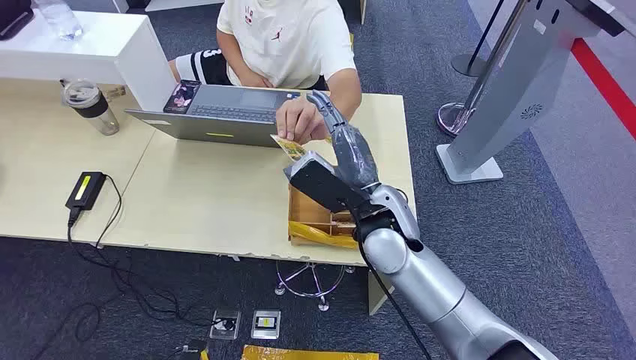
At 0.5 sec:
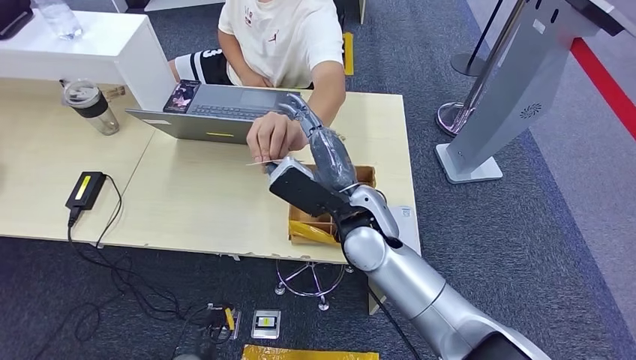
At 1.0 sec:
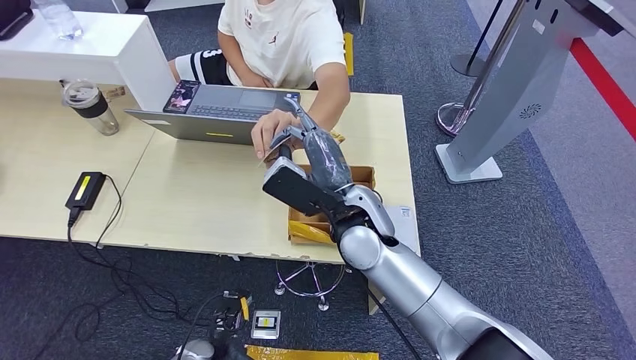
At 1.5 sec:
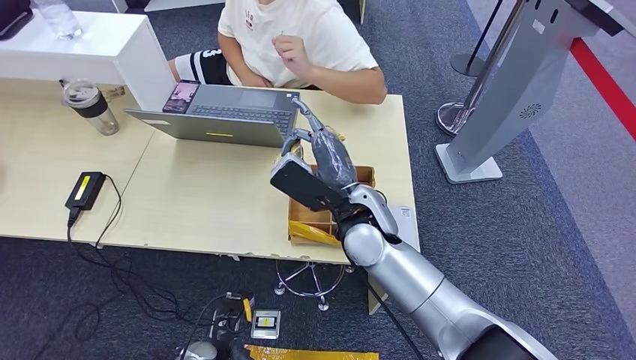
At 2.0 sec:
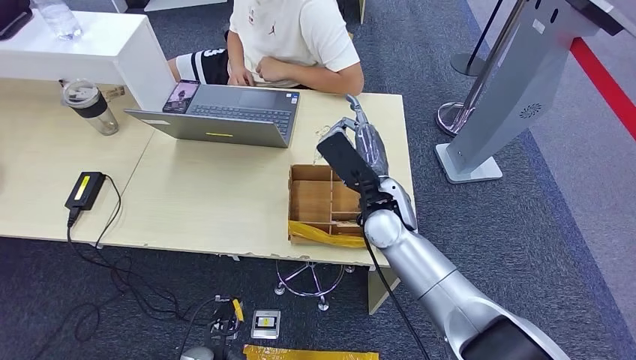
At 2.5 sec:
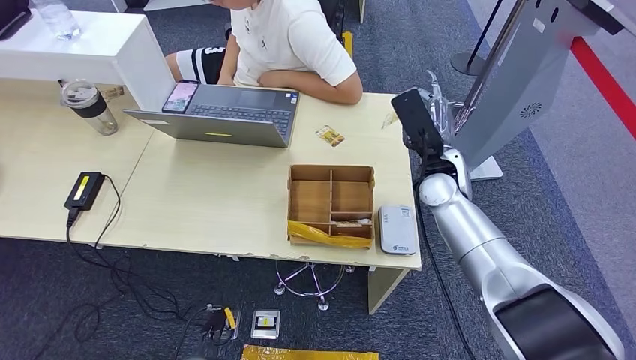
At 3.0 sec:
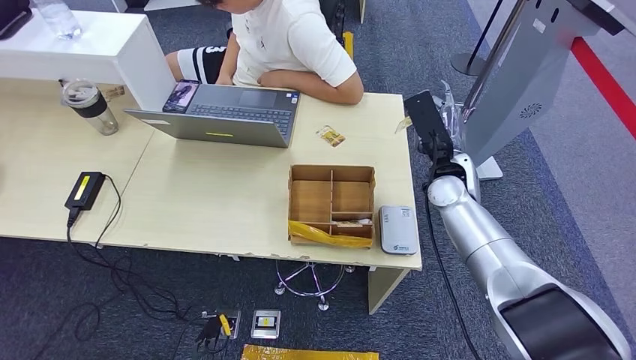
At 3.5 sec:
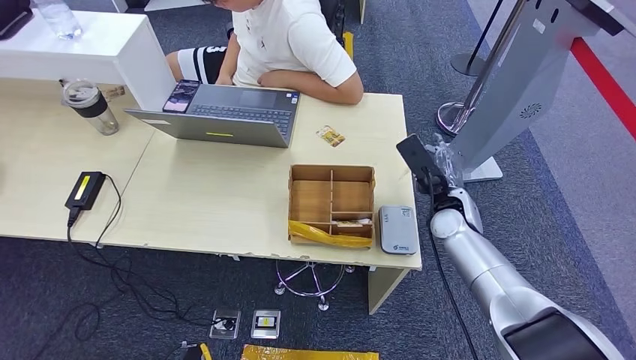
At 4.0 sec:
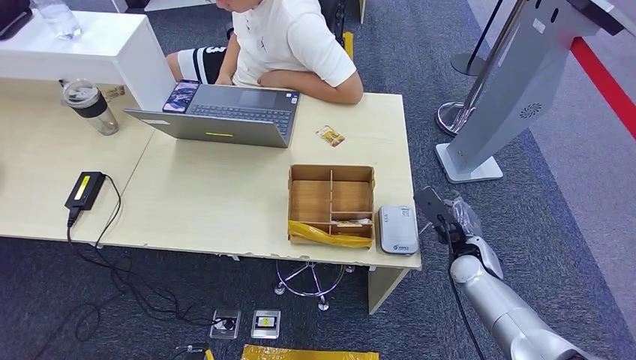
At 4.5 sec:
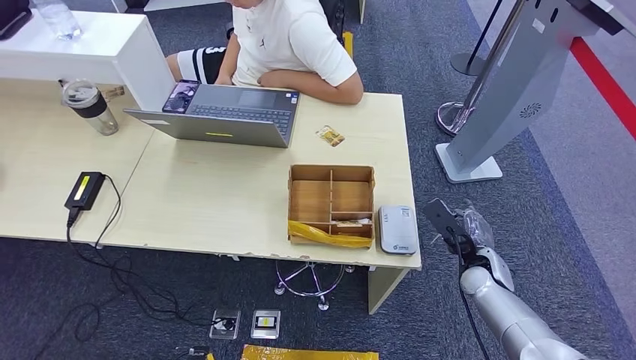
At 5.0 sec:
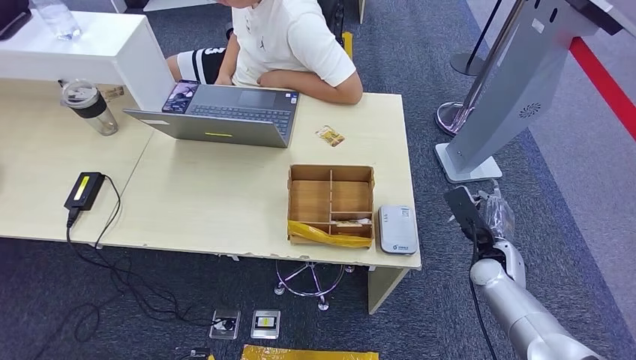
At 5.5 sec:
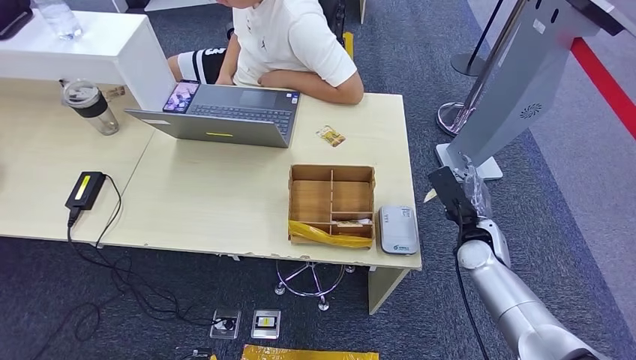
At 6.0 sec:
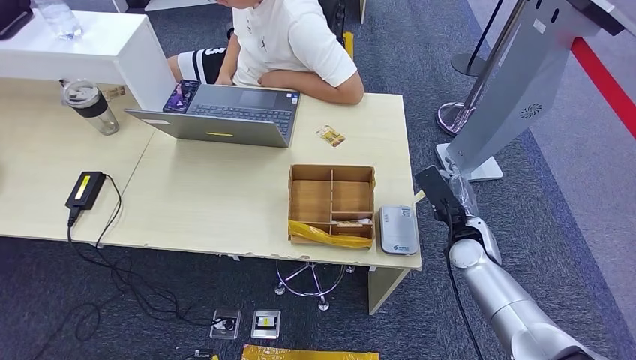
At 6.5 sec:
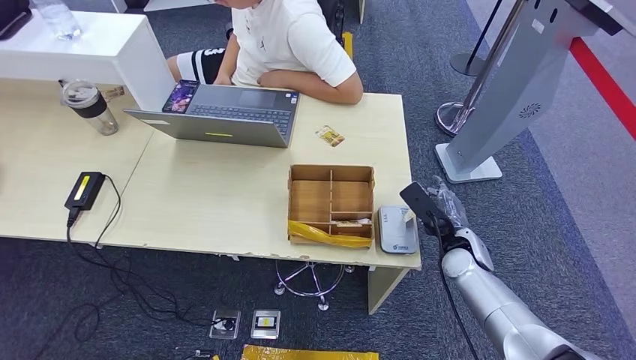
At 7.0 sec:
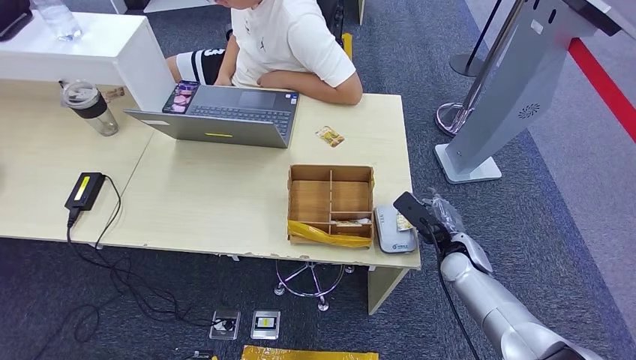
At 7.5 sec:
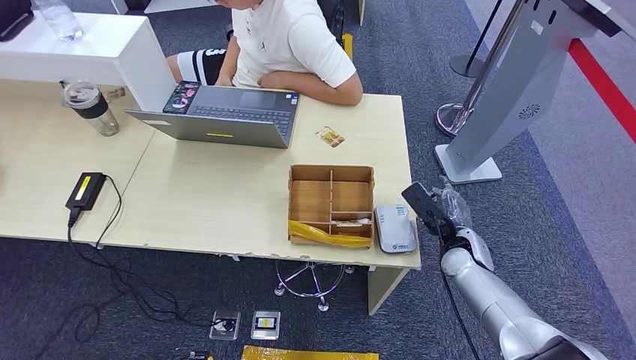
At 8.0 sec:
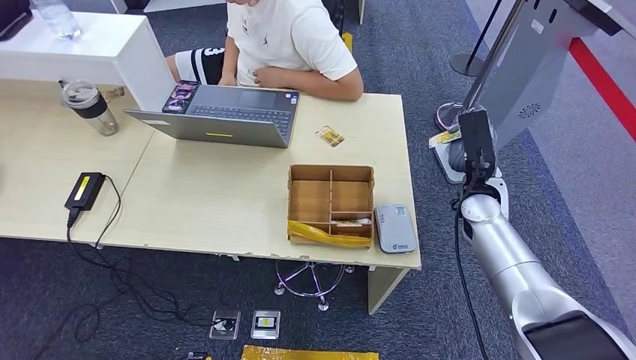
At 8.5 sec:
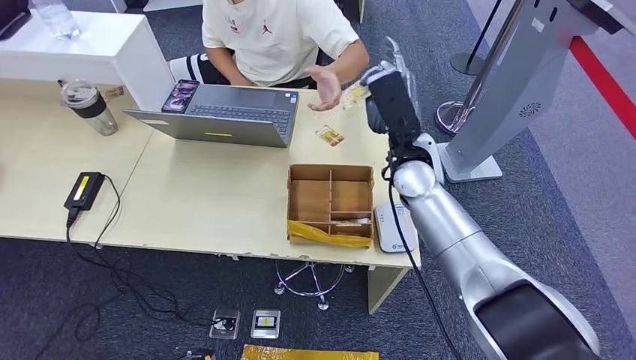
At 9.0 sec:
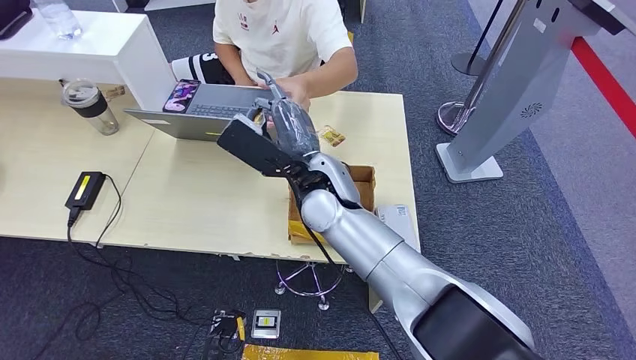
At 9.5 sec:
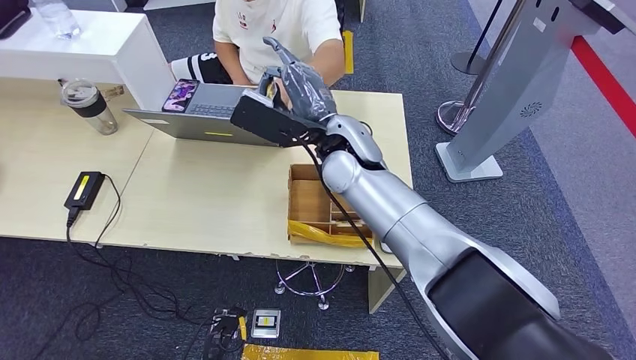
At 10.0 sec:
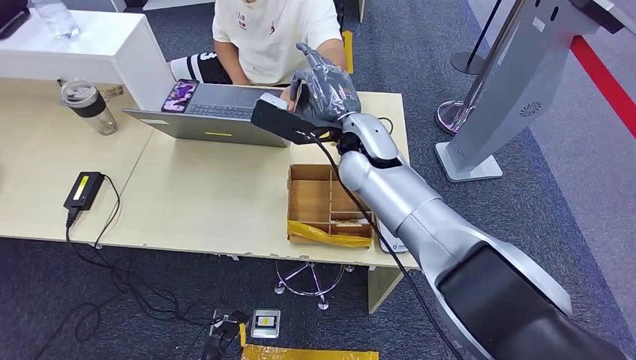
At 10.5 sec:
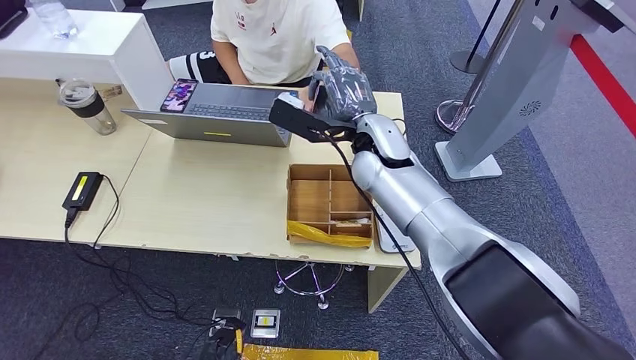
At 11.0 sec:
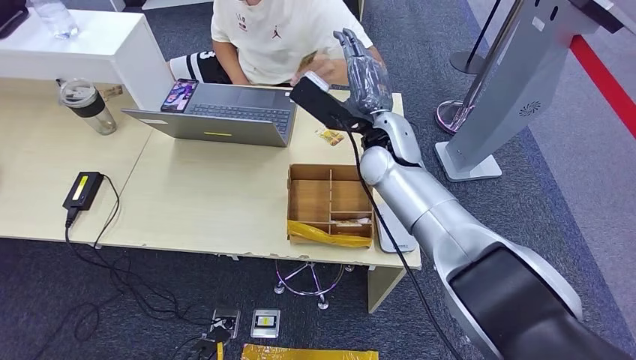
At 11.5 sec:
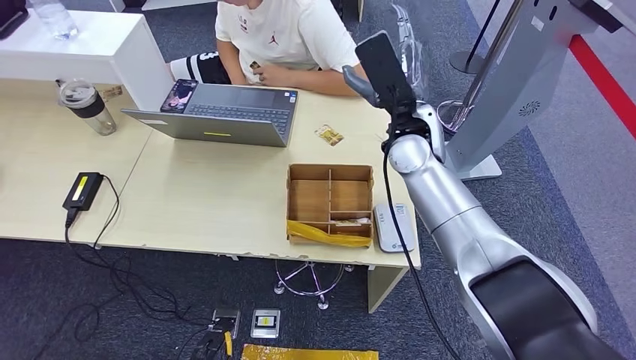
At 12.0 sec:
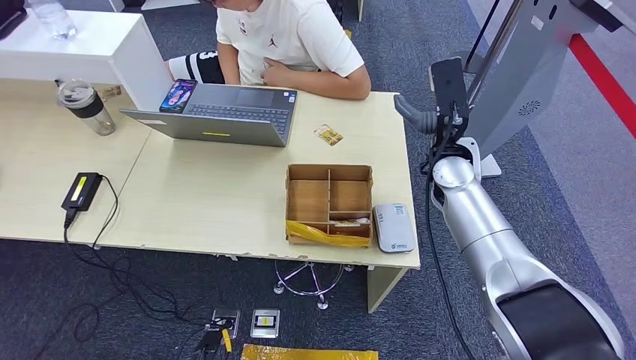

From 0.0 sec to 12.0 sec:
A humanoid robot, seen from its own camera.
Step, from 0.0 sec to 2.0 sec: Take the ID card from the person's hand.
Step, from 2.5 sec to 8.0 sec: Place the ID card on the card reader.
From 2.0 sec to 4.0 sec: The right hand moves to the right and downward, some 25 cm, while the left hand heads backward and to the left, covering approximately 10 cm.
From 4.0 sec to 6.0 sec: The hands stay close to where they were, moving slightly.
From 6.0 sec to 8.0 sec: The right hand heads upward, covering some 5 cm.
From 8.0 sec to 10.0 sec: The right hand heads to the left and upward, covering roughly 25 cm. The left hand shifts roughly 10 cm forward.

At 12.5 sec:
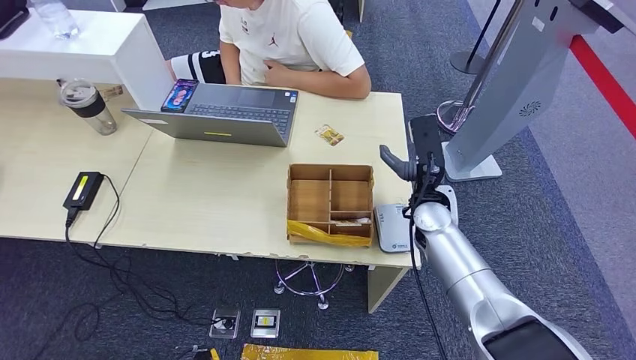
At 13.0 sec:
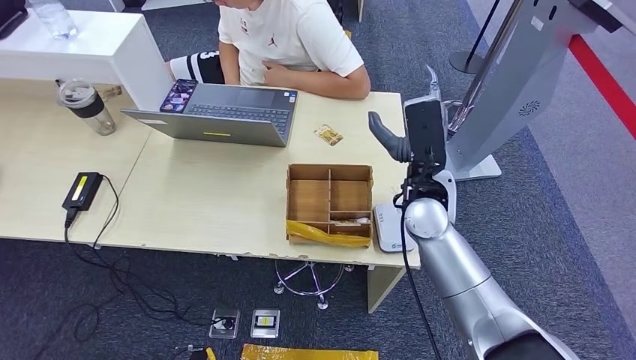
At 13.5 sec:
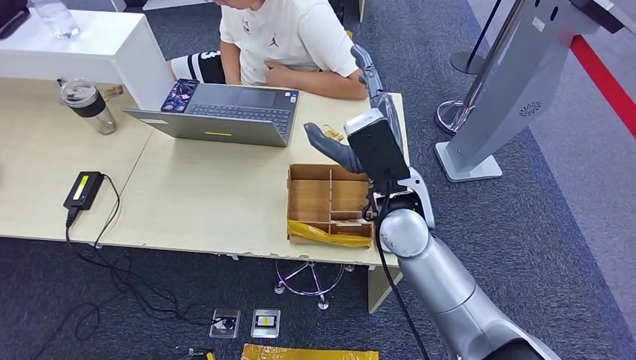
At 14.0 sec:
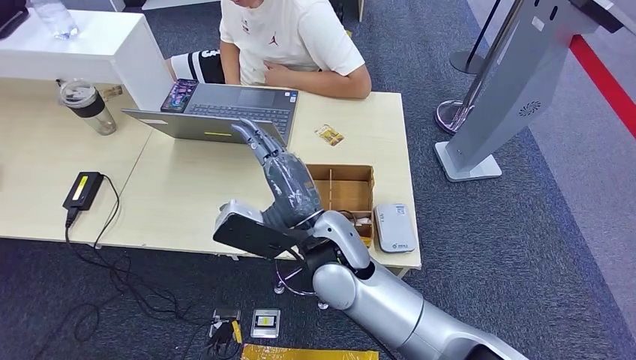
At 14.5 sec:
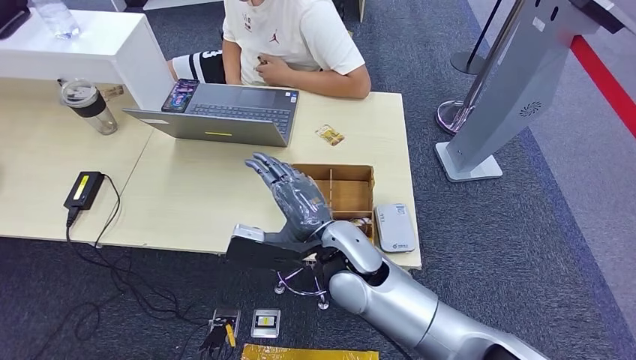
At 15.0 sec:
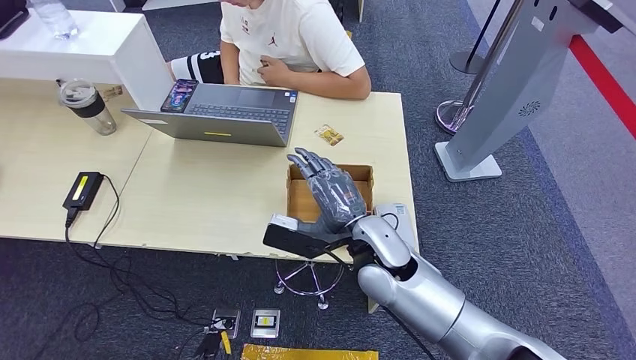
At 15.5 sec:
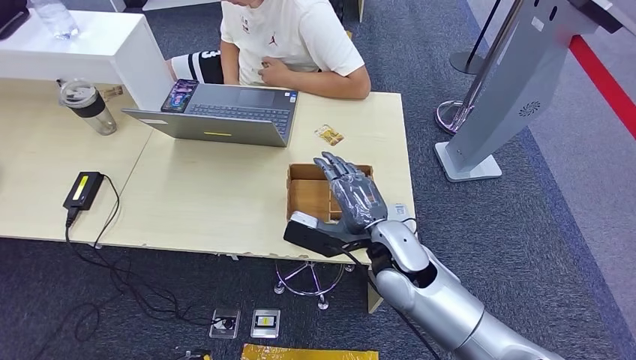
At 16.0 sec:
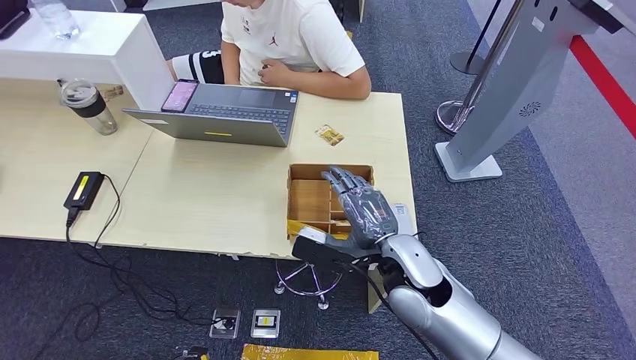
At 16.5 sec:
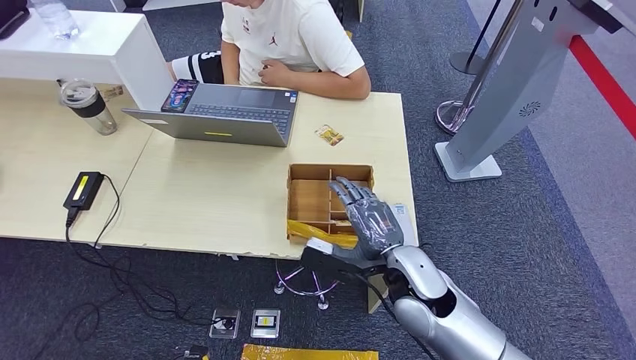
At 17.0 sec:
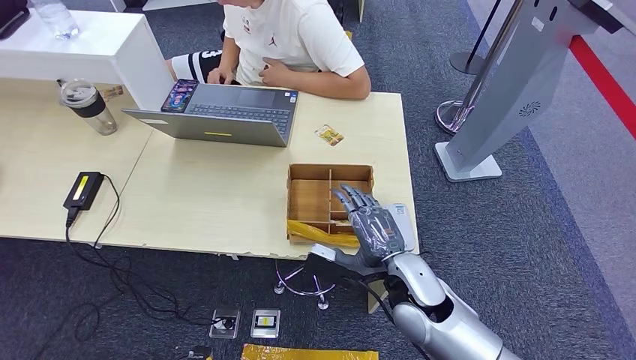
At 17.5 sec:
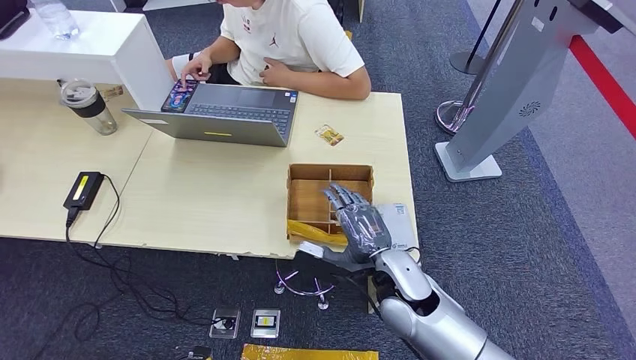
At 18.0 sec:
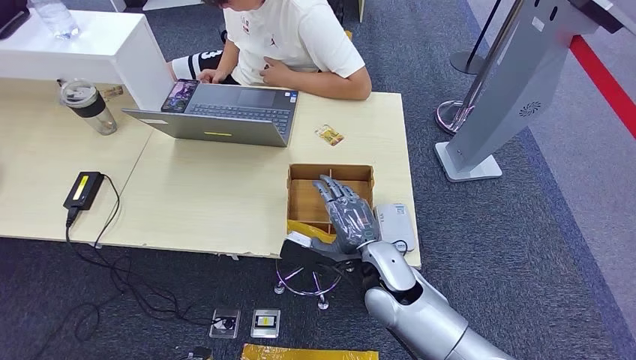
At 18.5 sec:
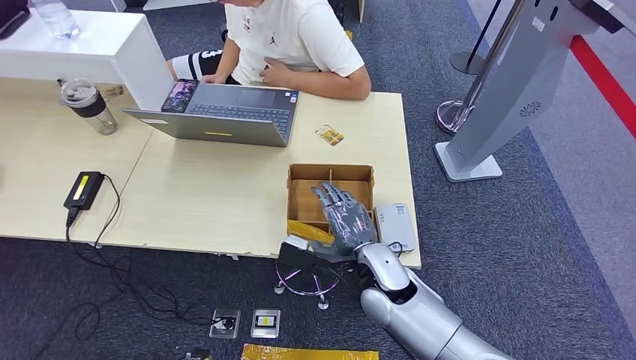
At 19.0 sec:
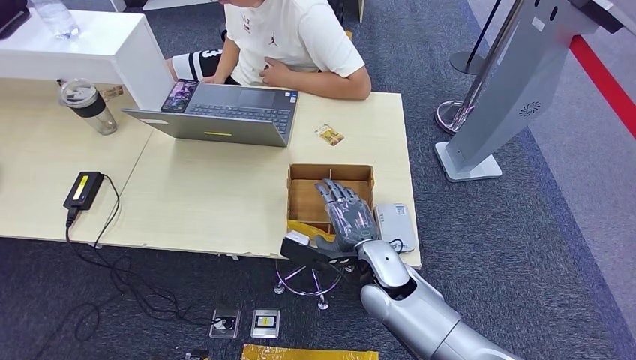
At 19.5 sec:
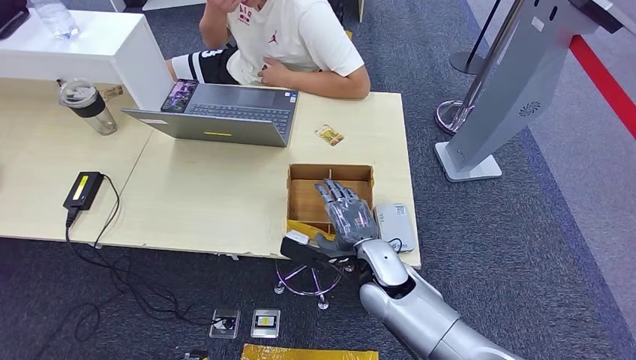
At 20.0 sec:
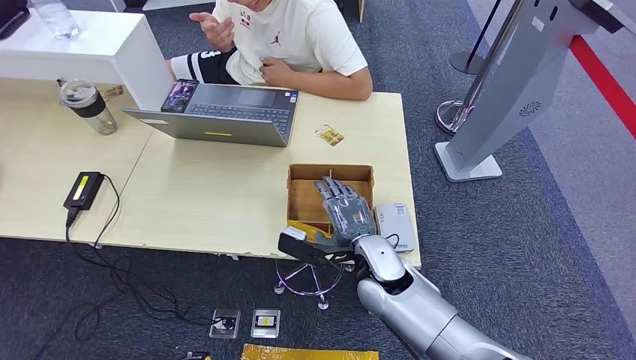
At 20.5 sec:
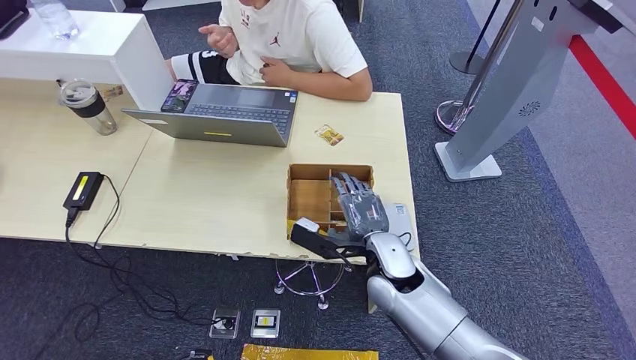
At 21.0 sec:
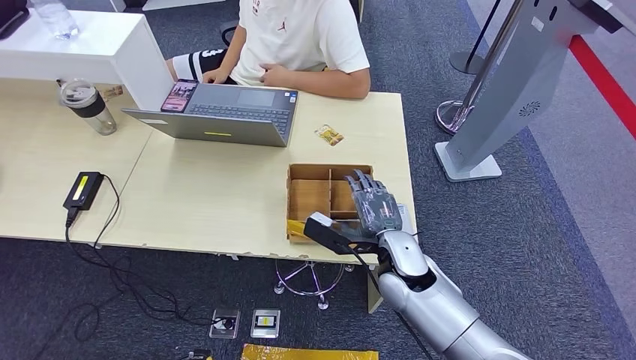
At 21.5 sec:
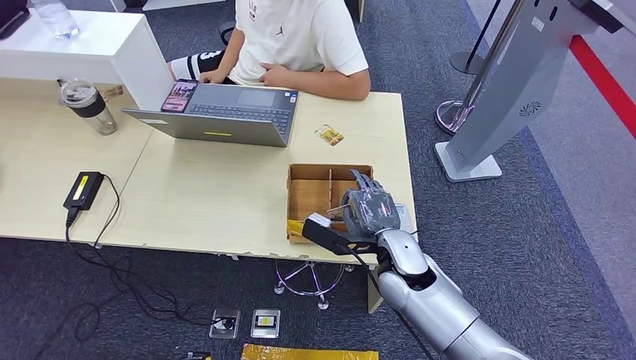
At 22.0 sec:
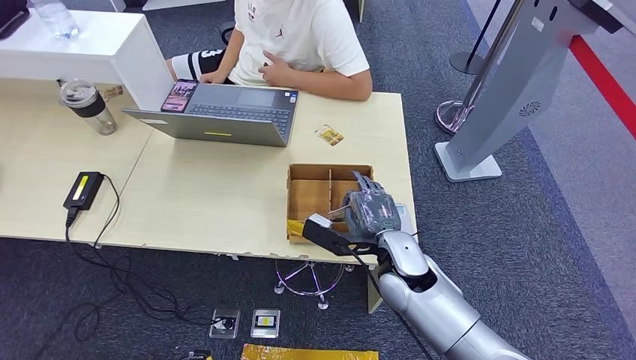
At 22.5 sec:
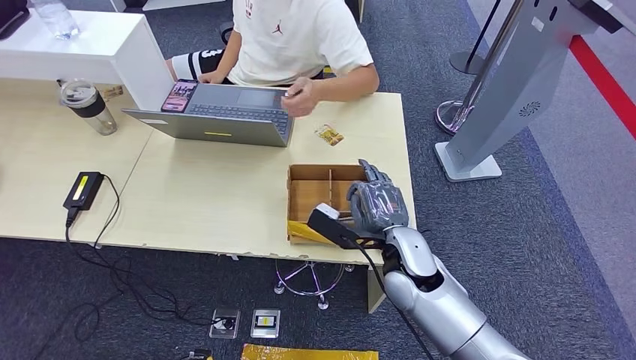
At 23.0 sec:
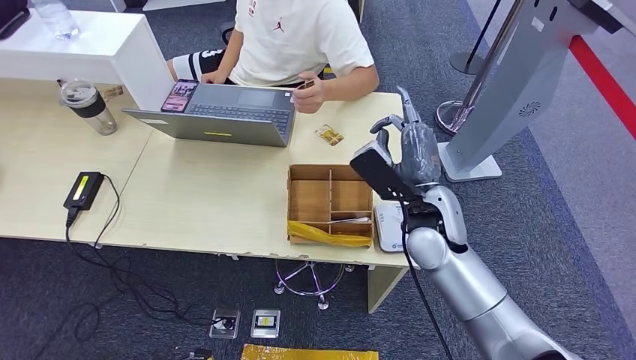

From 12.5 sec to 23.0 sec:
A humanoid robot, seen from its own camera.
Step, from 14.0 sec to 22.5 sec: Pick up the room key from the key card box.
From 12.5 sec to 14.5 sec: The right hand is displaced to the left and backward by approximately 20 cm. Meanwhile the left hand travels forward by about 5 cm.
From 14.5 sec to 16.5 sec: The right hand shifts approximately 10 cm to the right, while the left hand moves backward and to the left, approximately 10 cm.
From 16.5 sec to 19.0 sec: The right hand ends up some 5 cm from where it was.
From 19.0 sec to 21.0 sec: There are only small adjustments of the hands.
From 21.0 sec to 23.0 sec: The right hand moves upward, roughly 10 cm.
